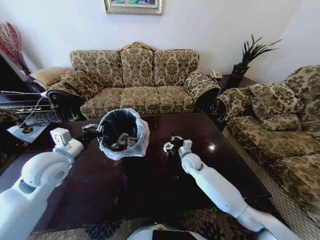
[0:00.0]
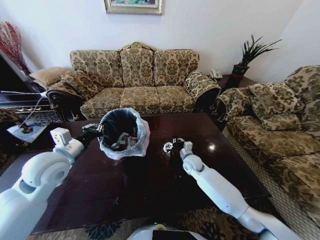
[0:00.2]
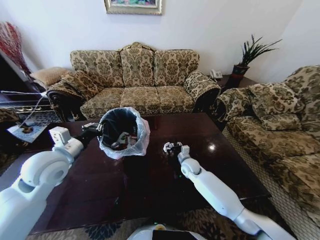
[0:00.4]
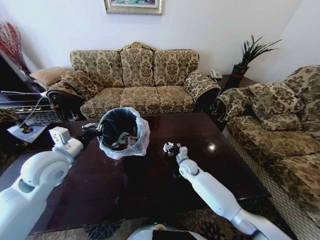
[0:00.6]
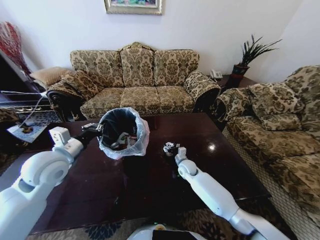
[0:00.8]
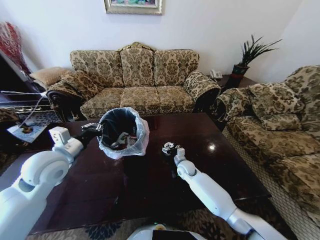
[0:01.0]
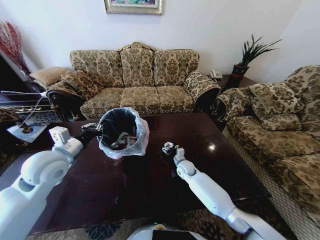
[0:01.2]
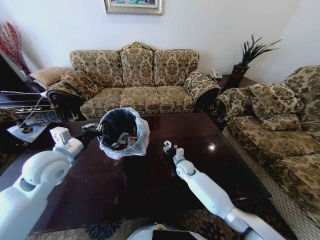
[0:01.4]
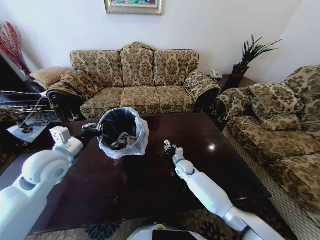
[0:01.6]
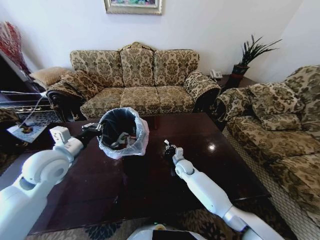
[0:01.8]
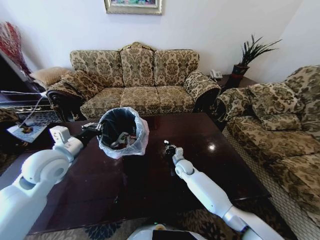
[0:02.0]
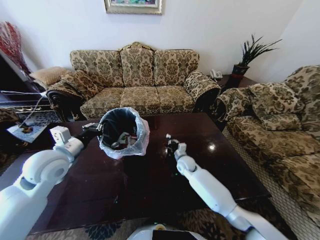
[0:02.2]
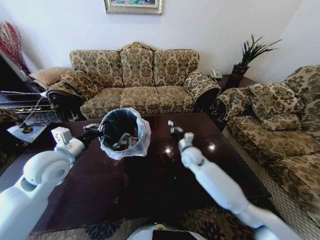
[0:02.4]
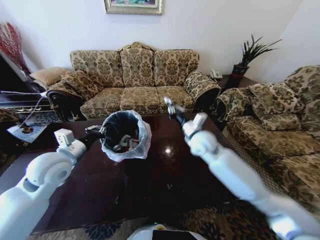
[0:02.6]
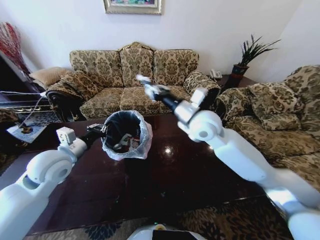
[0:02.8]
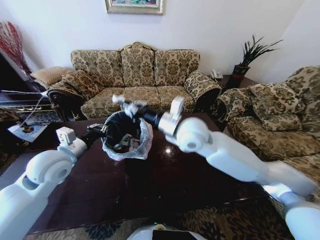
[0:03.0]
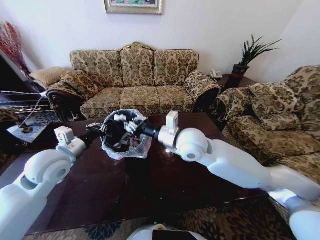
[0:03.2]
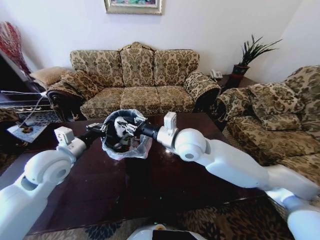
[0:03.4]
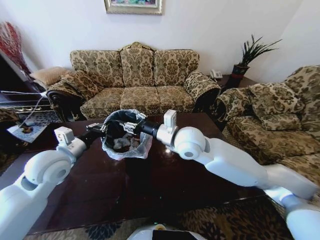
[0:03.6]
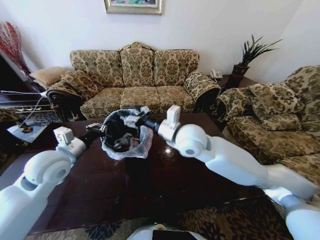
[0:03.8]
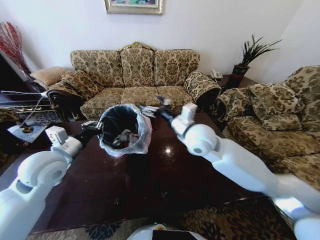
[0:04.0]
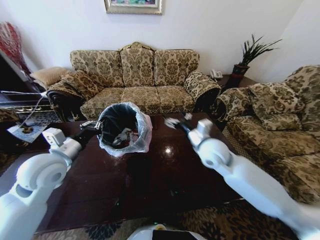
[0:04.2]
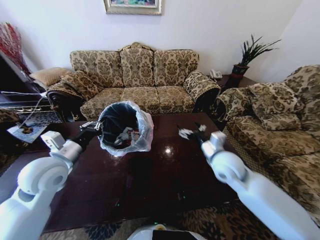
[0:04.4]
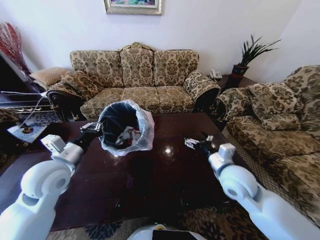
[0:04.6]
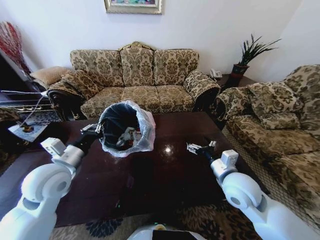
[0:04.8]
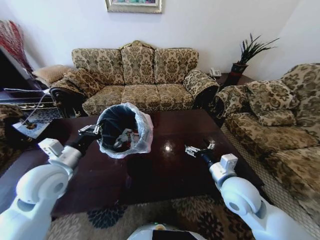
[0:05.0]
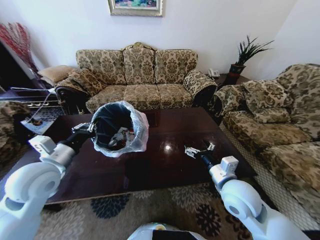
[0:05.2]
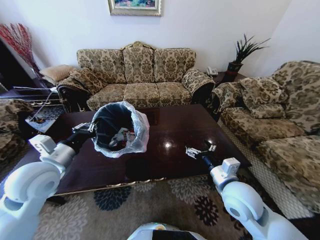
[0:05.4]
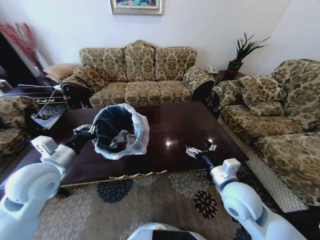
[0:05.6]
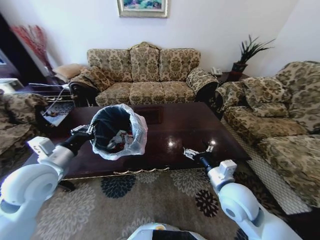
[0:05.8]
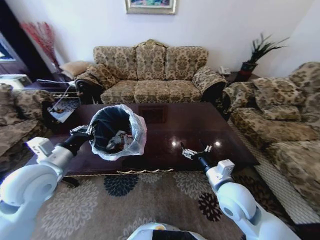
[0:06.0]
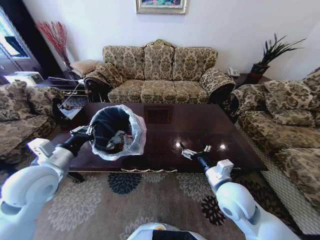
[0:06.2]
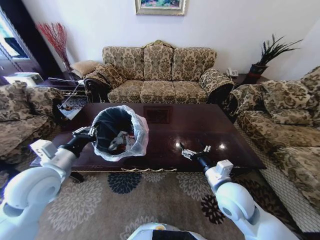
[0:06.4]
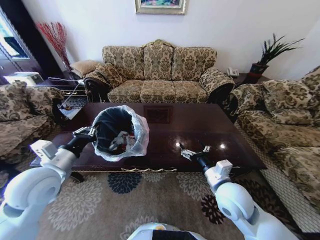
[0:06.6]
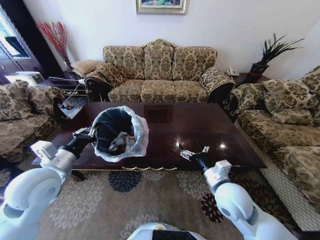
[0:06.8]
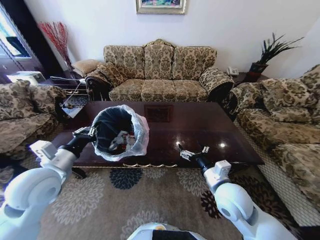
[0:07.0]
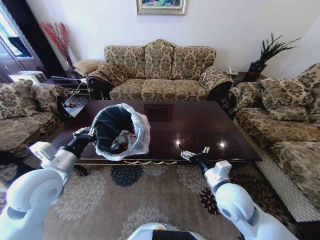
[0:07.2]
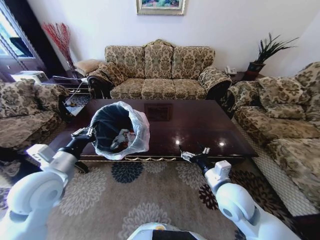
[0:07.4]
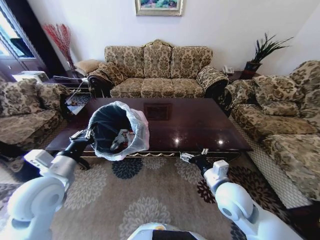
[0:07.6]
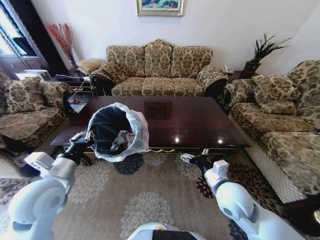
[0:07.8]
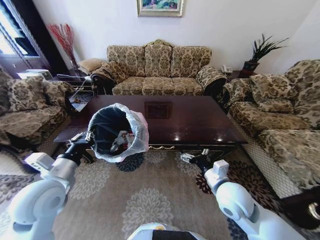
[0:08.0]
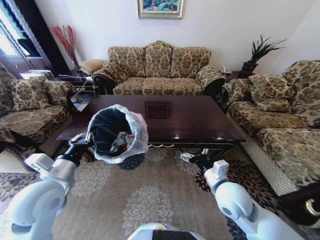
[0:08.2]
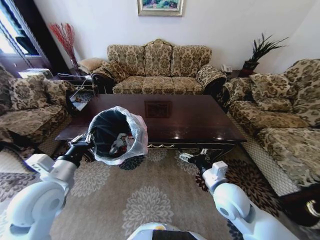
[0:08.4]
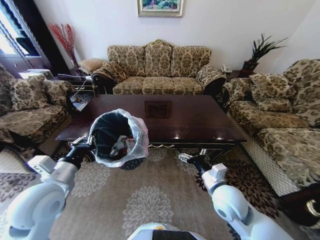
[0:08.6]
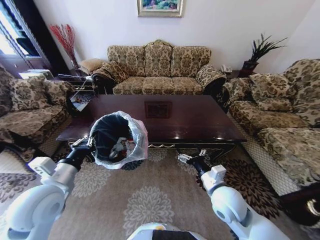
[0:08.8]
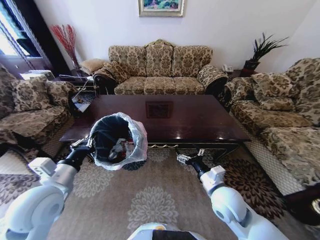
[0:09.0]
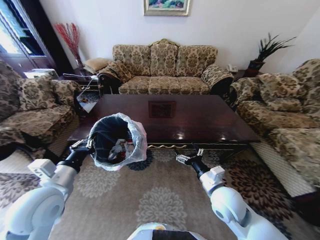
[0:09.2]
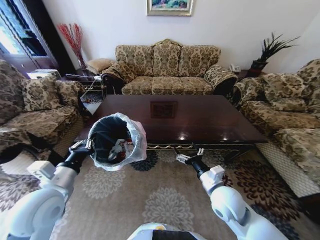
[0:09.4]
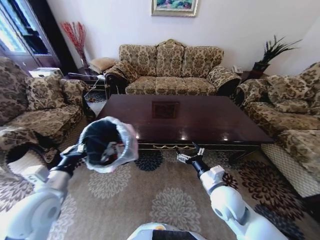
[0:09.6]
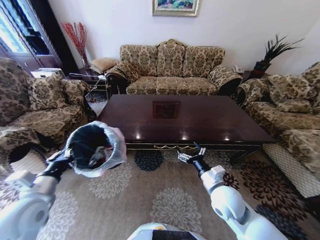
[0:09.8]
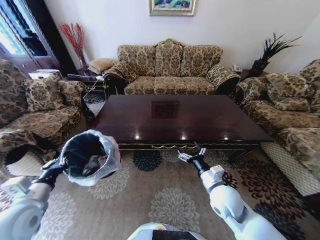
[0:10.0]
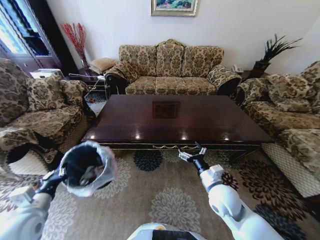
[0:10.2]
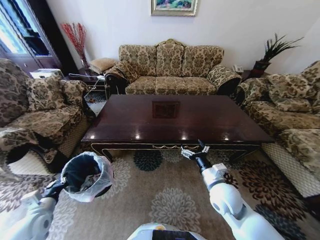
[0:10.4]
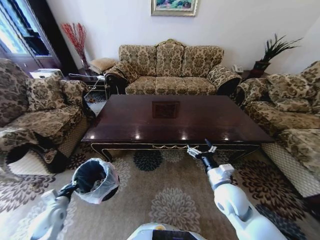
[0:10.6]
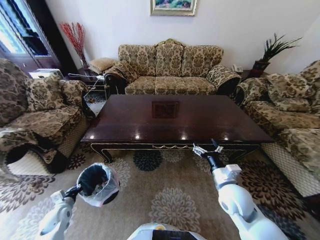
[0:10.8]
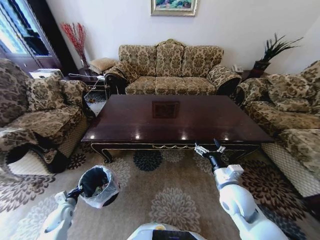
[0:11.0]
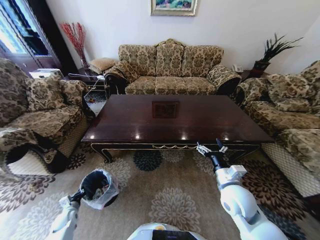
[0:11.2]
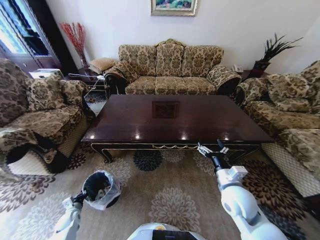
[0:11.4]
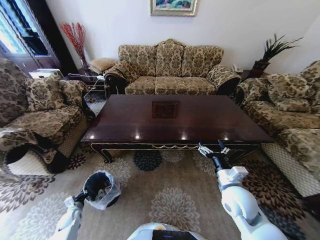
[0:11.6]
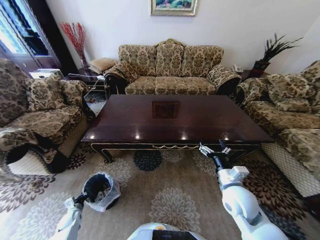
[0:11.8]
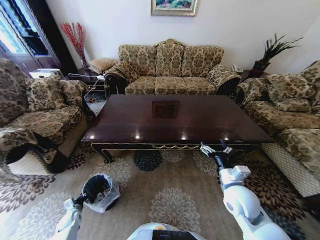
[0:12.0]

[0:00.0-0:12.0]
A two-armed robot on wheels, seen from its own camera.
Task of the whole recording: Move to the front of the table and place the trash on the table into the trash bin.
0:00.0 to 0:01.6: The right gripper moves downward, about 10 cm, and opens up.
0:01.6 to 0:03.0: The right gripper travels upward by roughly 35 cm, and closes its fingers.
0:03.0 to 0:04.4: The right gripper travels to the right and downward by about 20 cm, and opens its fingers.
0:04.4 to 0:06.0: The right gripper travels backward by some 10 cm.
0:09.0 to 0:10.4: The left gripper travels downward and to the left by roughly 20 cm.
0:10.4 to 0:12.0: The left gripper moves downward, approximately 25 cm.

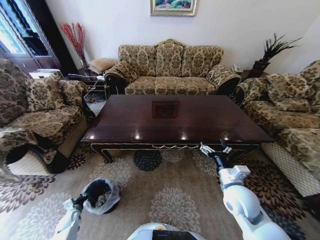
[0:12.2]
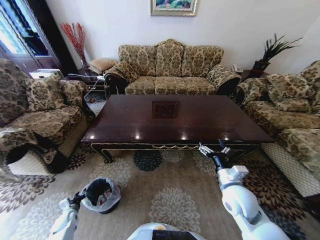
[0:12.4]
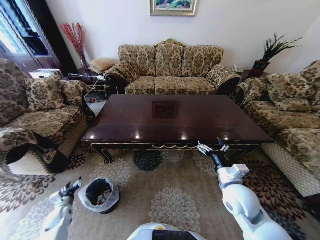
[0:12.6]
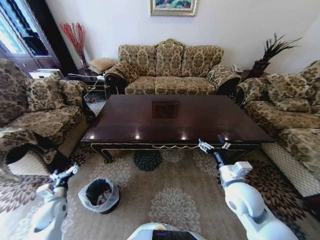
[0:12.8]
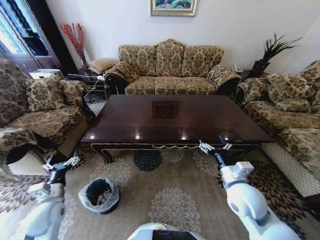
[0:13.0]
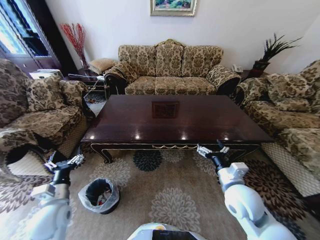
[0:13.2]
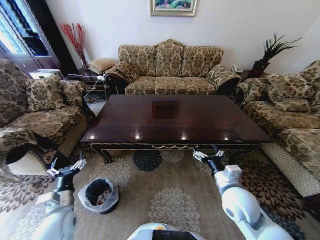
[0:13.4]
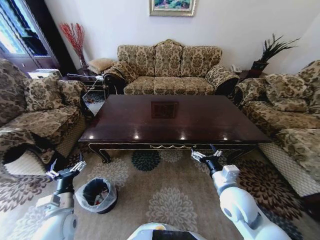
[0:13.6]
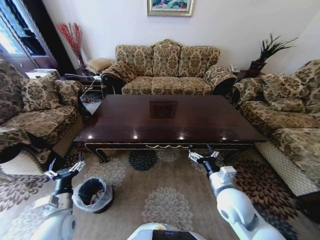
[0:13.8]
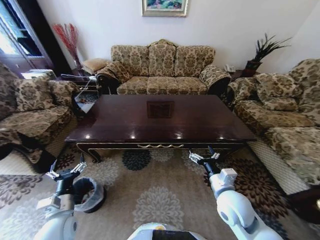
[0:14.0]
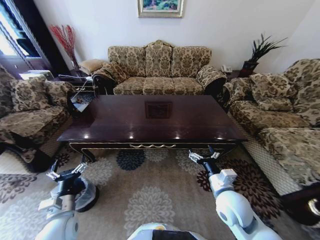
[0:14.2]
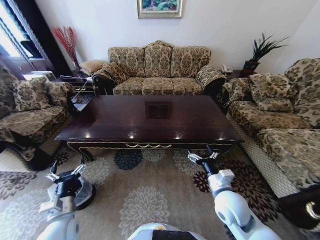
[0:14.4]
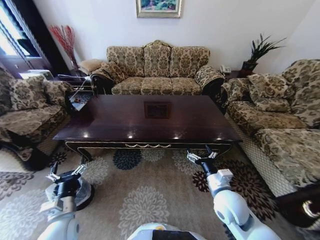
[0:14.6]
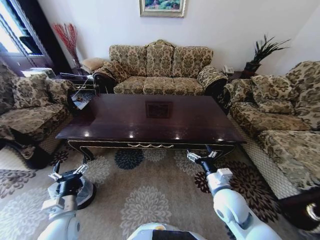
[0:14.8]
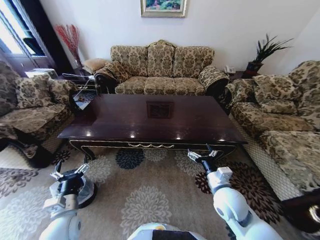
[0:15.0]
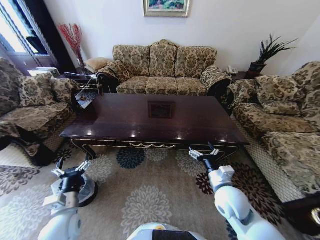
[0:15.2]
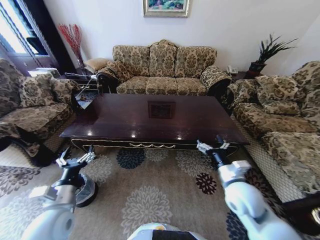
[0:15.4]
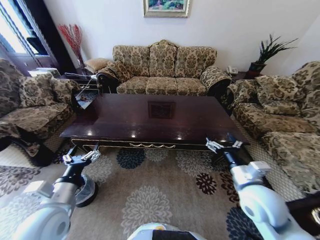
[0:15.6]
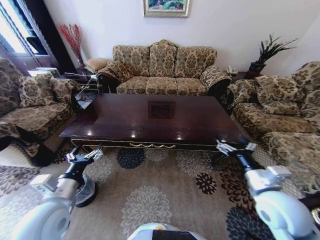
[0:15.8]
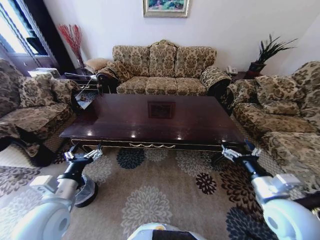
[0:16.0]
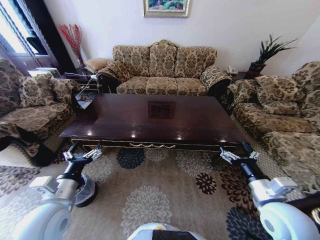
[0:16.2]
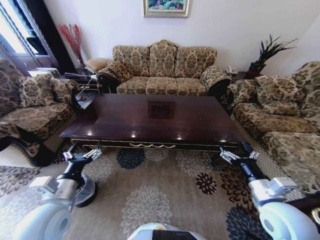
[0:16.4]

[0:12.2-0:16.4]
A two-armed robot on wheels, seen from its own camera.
Task of the whole recording: Move to the front of the table and place the trash on the table into the trash bin.
0:12.2 to 0:13.6: The left gripper travels upward and to the right by approximately 30 cm, and opens.
0:15.0 to 0:16.4: The right gripper is displaced to the right, upward and backward by some 10 cm, while the left gripper goes approximately 10 cm upward.
